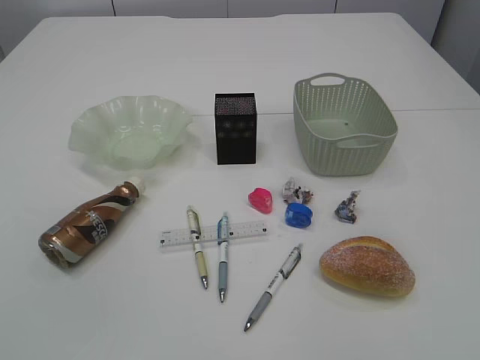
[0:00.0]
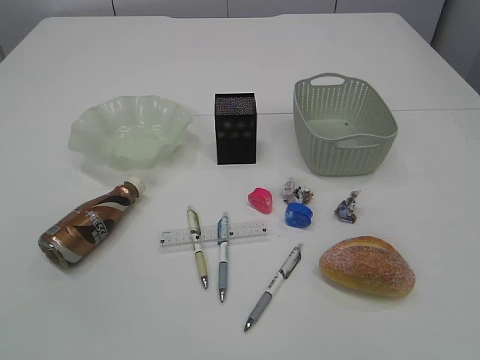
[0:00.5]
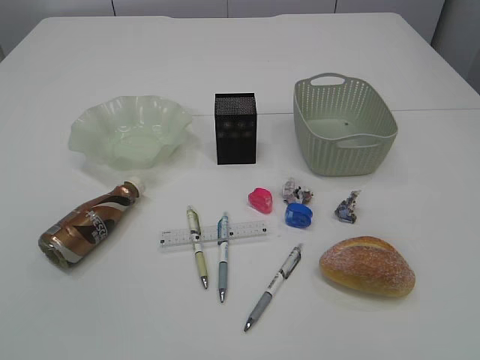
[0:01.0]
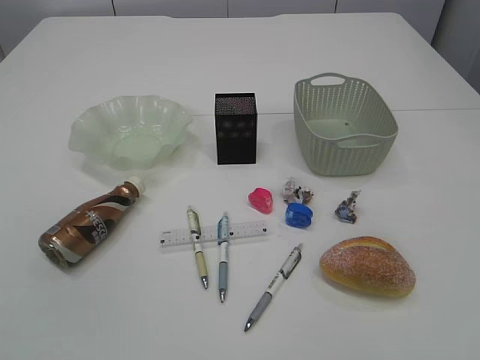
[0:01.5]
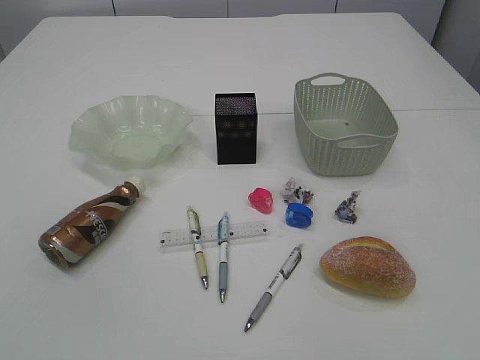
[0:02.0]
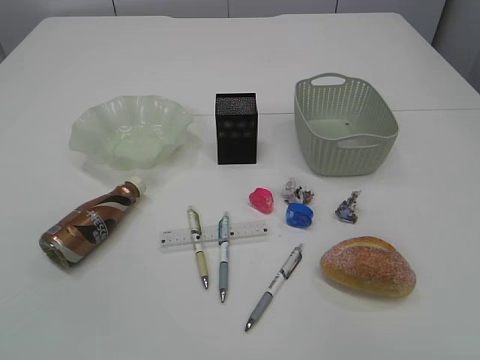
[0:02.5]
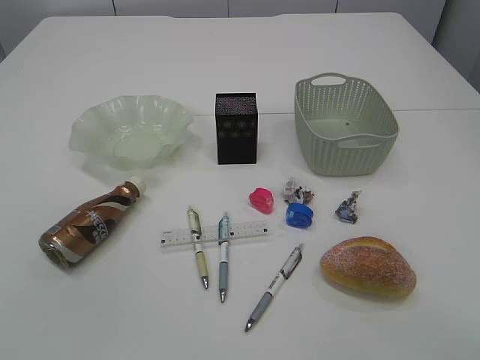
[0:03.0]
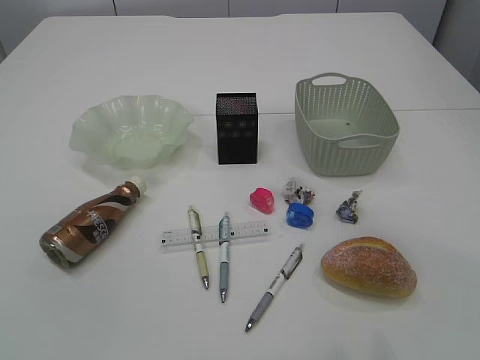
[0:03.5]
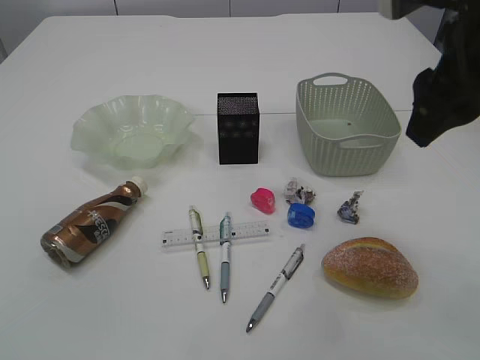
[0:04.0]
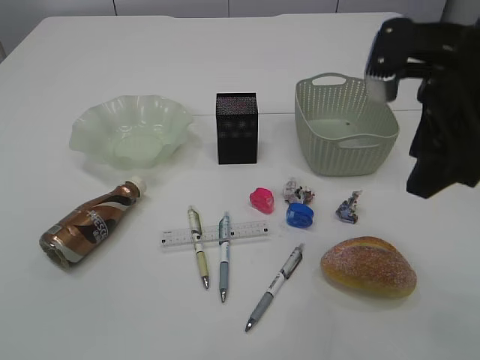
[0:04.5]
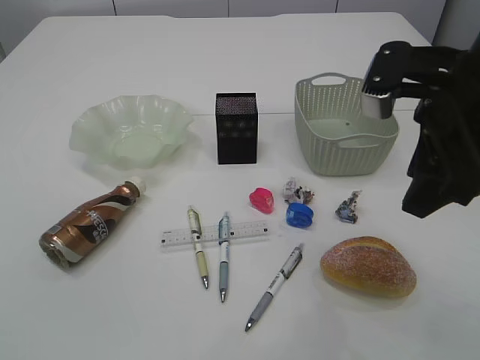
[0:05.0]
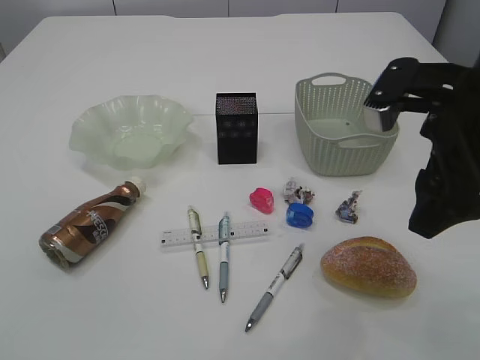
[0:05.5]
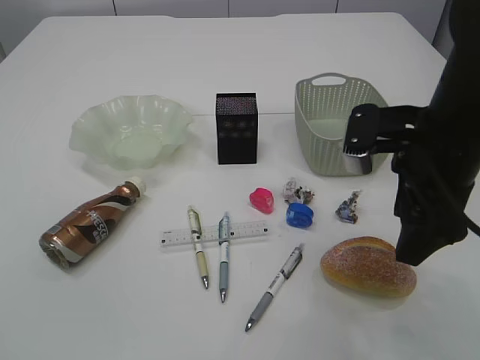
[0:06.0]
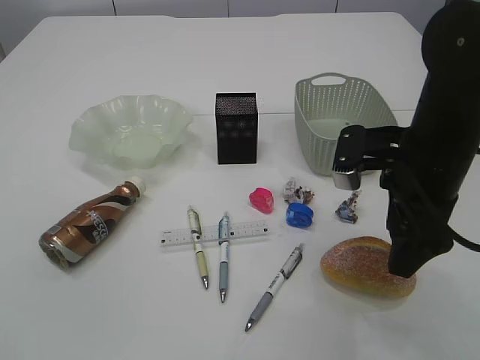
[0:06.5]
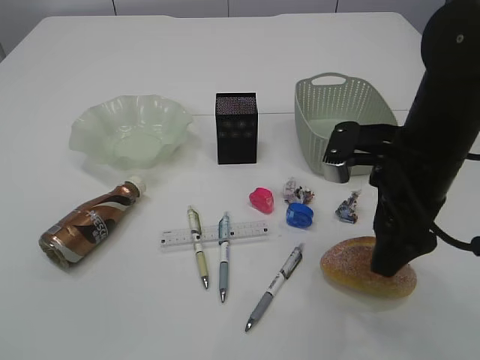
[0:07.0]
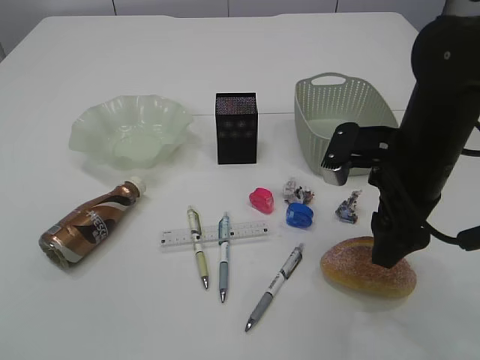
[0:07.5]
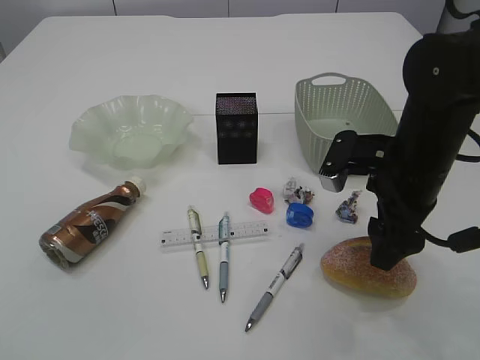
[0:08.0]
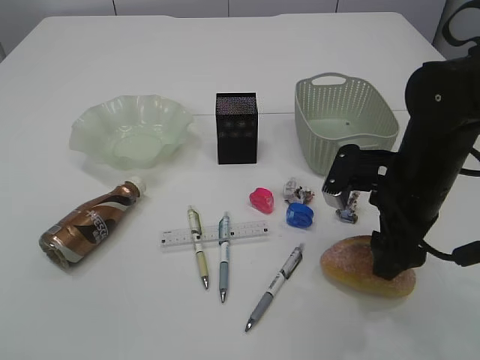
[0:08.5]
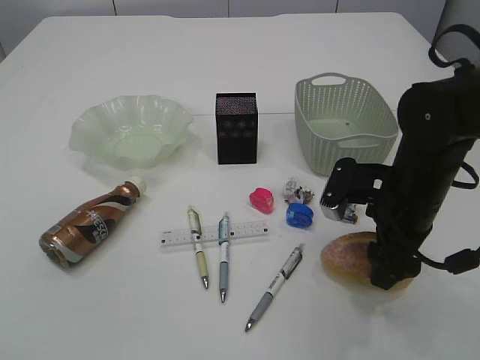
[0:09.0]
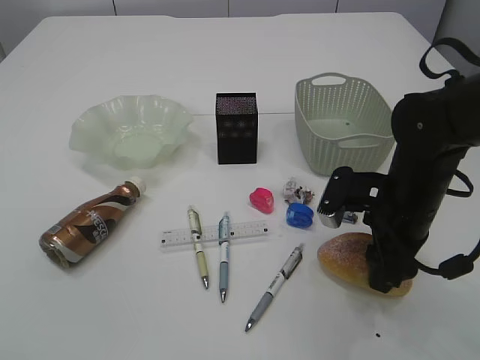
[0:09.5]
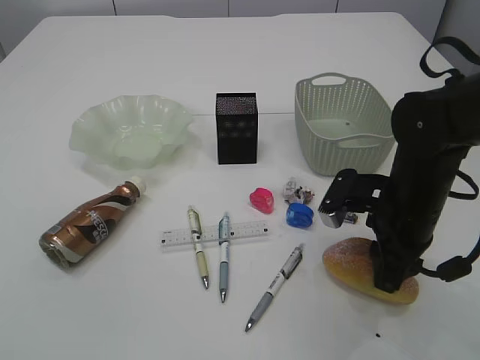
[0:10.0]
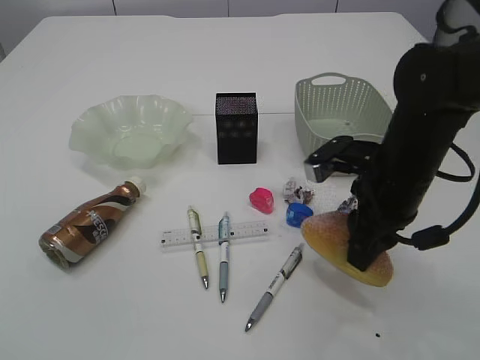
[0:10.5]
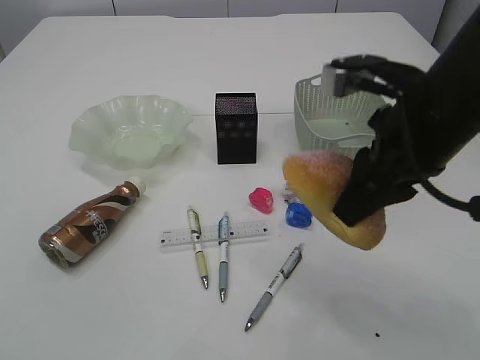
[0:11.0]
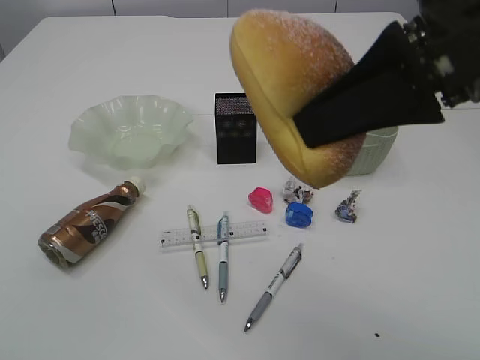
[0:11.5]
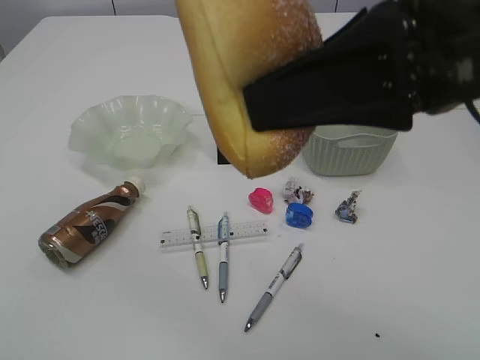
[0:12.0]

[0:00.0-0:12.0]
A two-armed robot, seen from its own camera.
0:02.0 to 0:04.0: The right gripper goes roughly 30 cm forward.
0:04.0 to 0:06.0: The right gripper goes approximately 10 cm downward.
0:06.0 to 0:08.0: The right gripper heads downward, covering about 5 cm.
0:08.0 to 0:10.0: The right gripper is displaced downward by some 5 cm, and closes its fingers.
0:10.0 to 0:12.0: The right gripper moves upward and backward, roughly 25 cm.

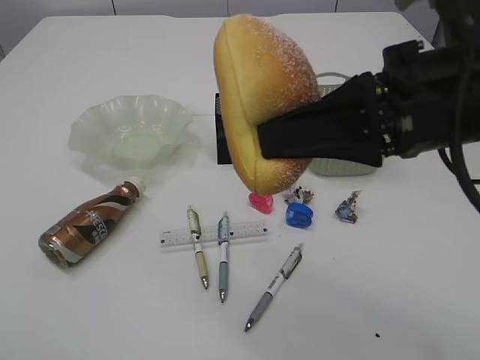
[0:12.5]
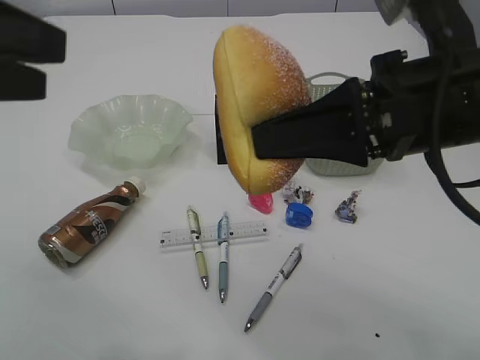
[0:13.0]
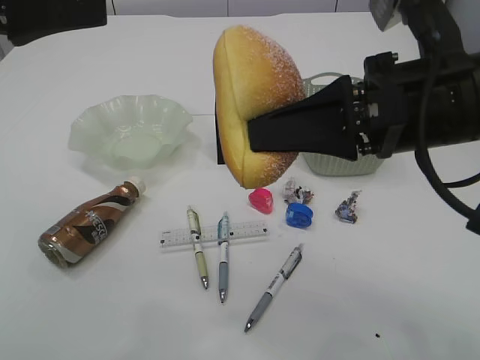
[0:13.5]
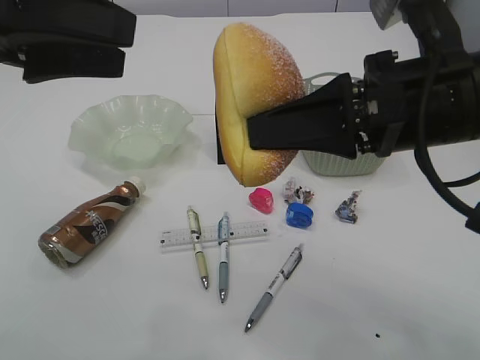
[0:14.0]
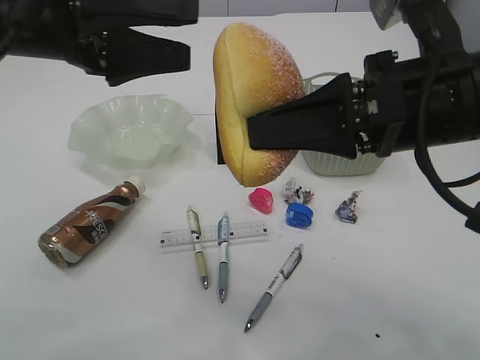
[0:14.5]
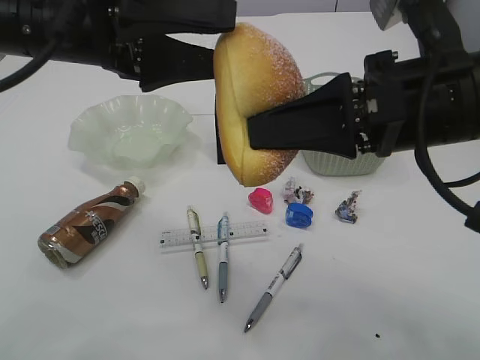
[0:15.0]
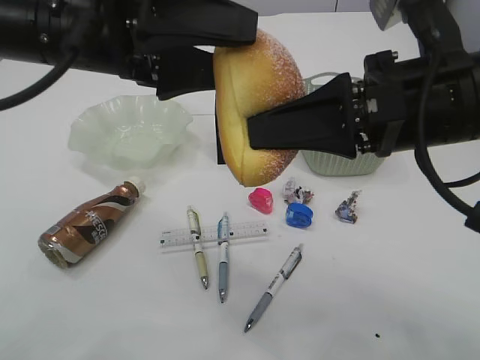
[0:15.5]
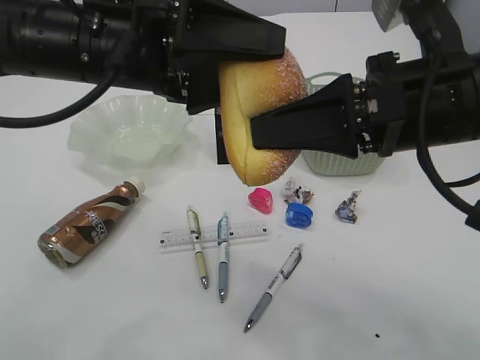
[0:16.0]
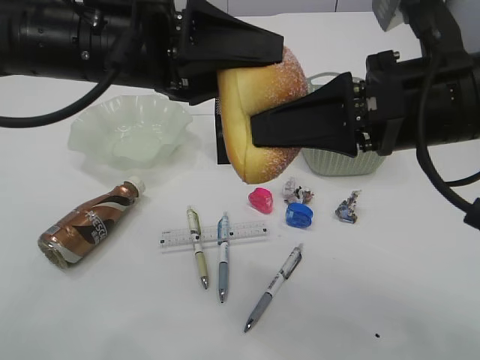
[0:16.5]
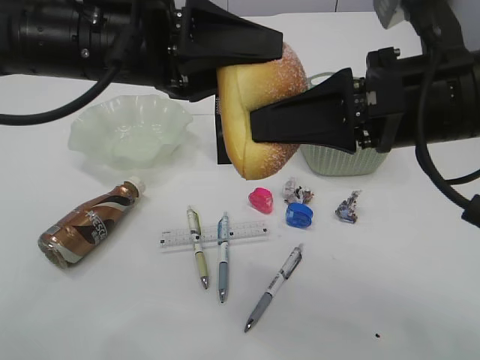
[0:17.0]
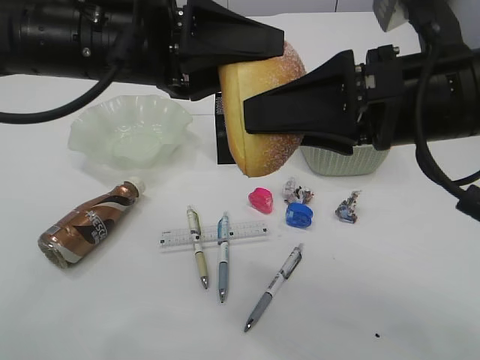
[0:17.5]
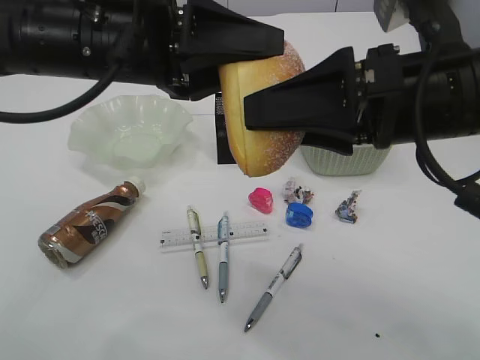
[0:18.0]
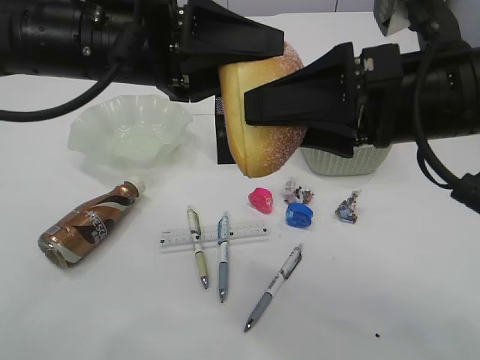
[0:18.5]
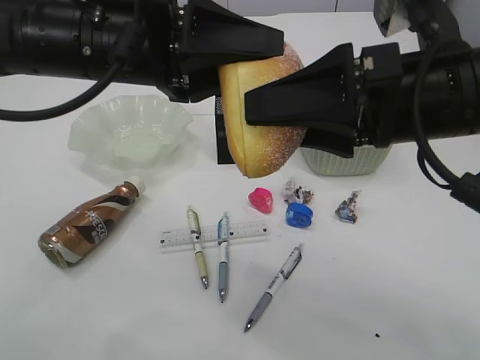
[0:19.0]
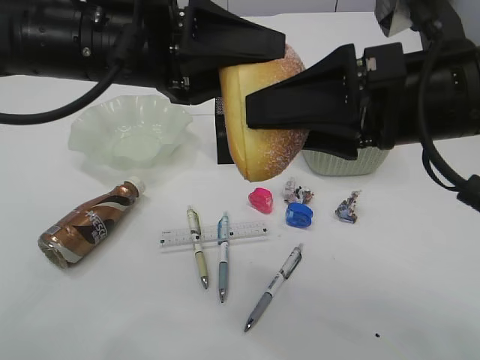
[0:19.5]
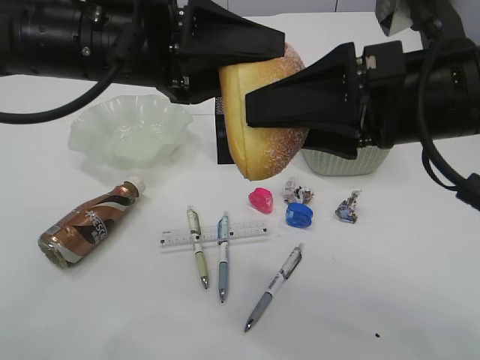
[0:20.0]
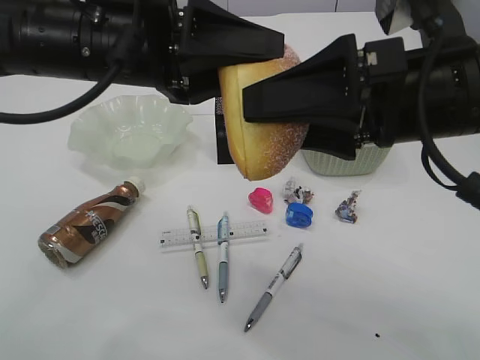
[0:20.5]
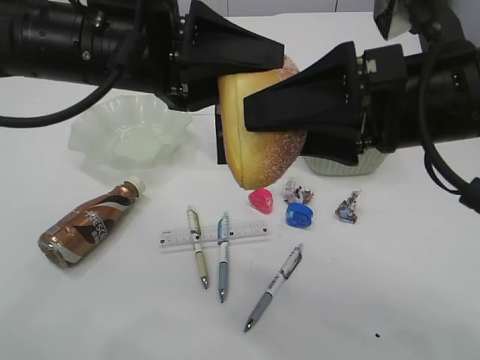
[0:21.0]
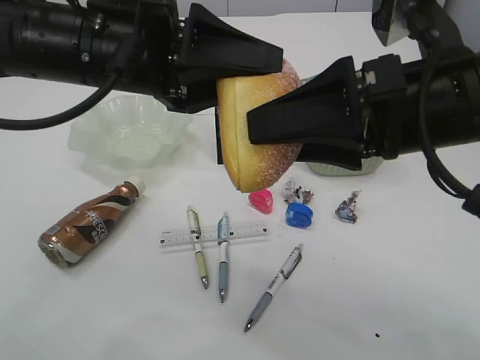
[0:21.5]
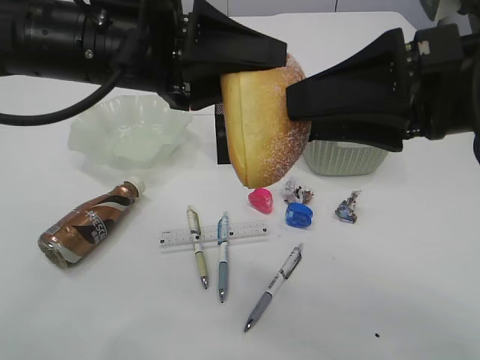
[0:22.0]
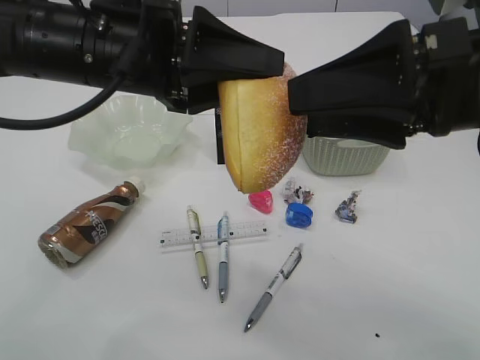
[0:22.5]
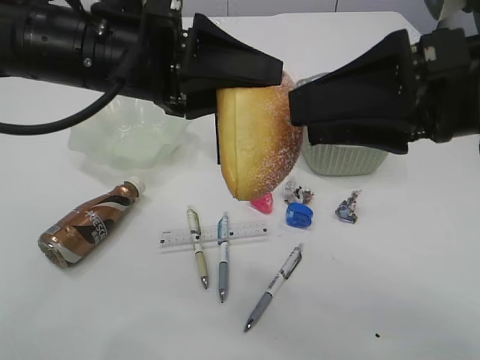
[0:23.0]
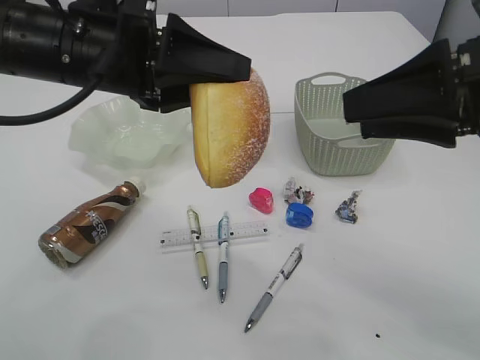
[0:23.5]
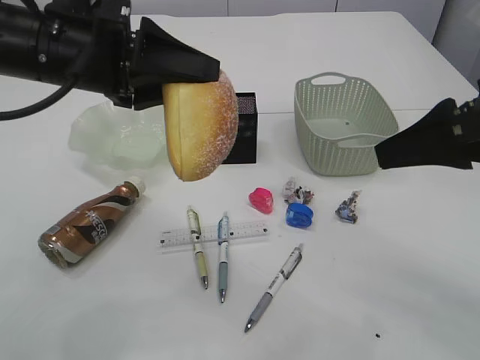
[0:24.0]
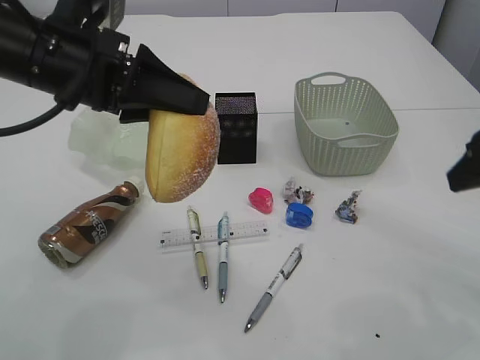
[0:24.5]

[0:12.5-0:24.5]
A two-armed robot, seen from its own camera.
Step, 0:12.5 to 0:23.5: Hand over the bread.
0:12.5 to 0:14.5: The left gripper shifts roughly 25 cm forward and to the right.
0:14.5 to 0:16.5: The left gripper heads to the right, covering approximately 5 cm, and closes.
0:16.5 to 0:18.5: The right gripper opens its fingers.
0:18.5 to 0:20.5: Both grippers stay about where they are.
0:20.5 to 0:22.5: The grippers stay close to where they were, moving slightly.
0:22.5 to 0:24.5: The right gripper goes roughly 10 cm to the right and downward. The left gripper goes roughly 5 cm to the left.

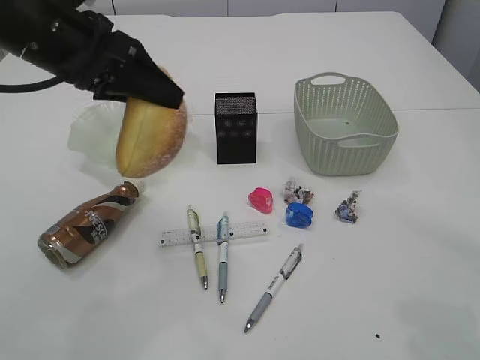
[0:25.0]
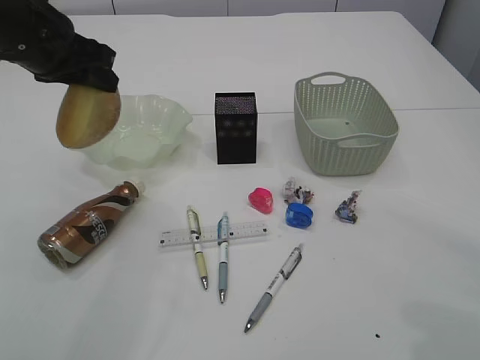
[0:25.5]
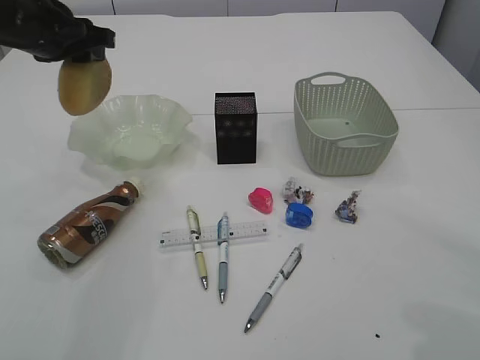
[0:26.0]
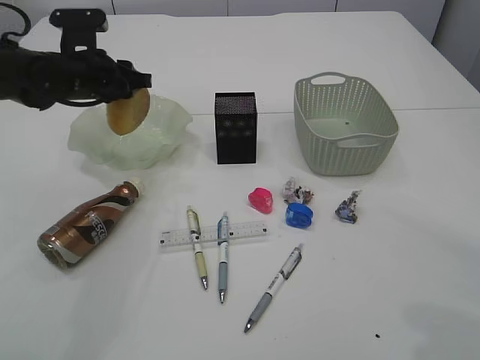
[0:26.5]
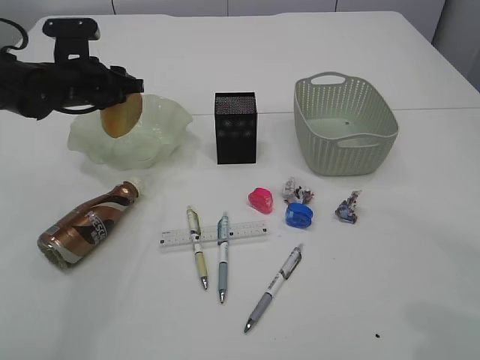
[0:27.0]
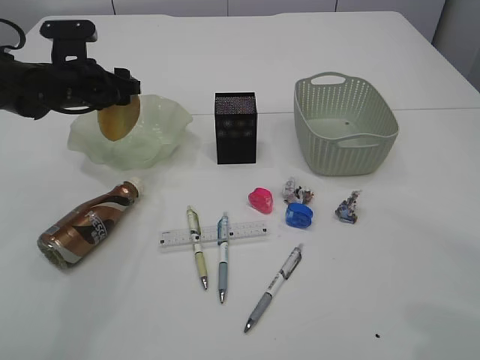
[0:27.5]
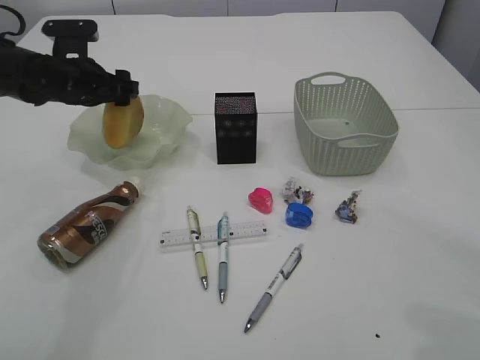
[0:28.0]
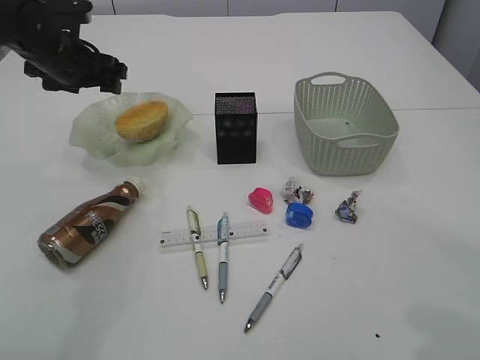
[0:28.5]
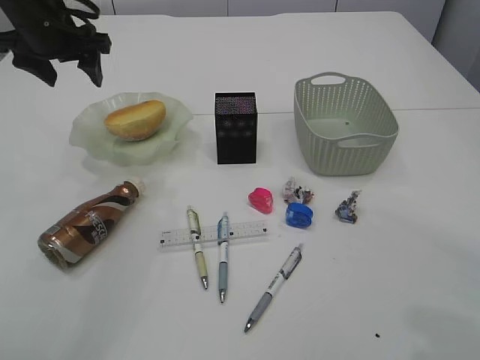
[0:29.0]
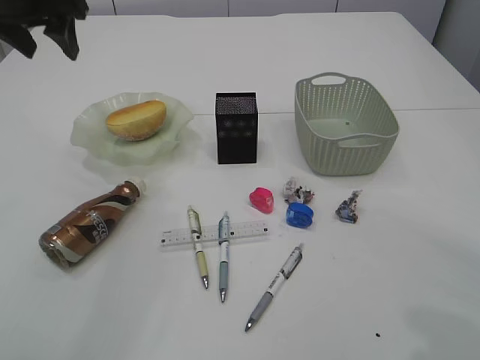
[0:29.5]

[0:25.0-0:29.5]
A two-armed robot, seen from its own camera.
Step, 0:25.0 to 0:28.5: place the bread in the plate.
0:25.0 to 0:27.0: The left gripper moves forward and downward, roughly 20 cm.
0:27.0 to 0:29.5: The left gripper heads upward, covering about 15 cm.
